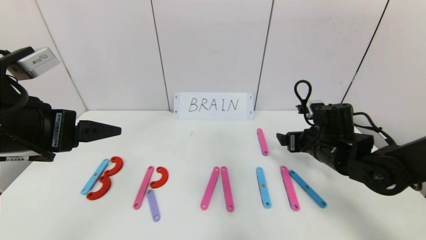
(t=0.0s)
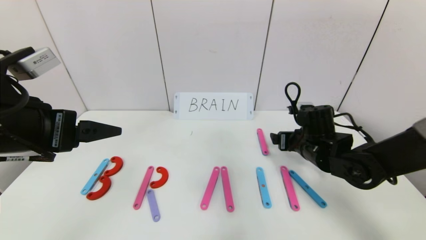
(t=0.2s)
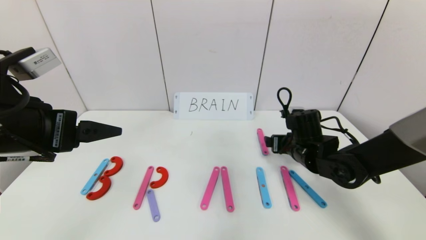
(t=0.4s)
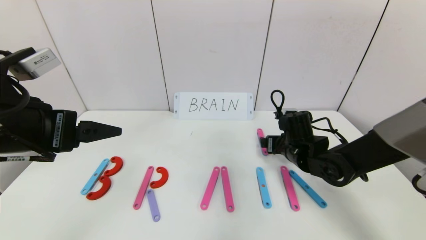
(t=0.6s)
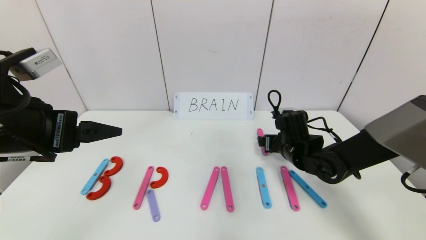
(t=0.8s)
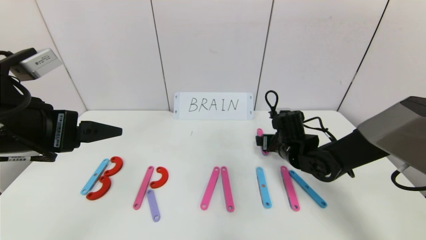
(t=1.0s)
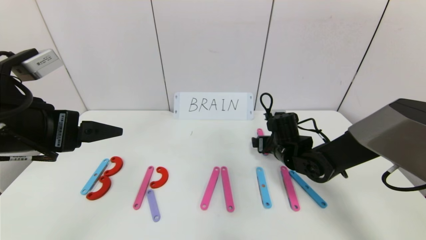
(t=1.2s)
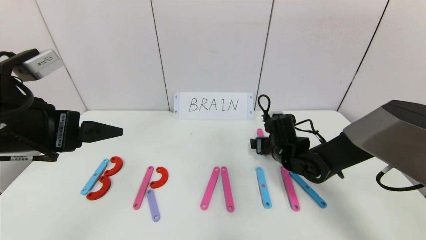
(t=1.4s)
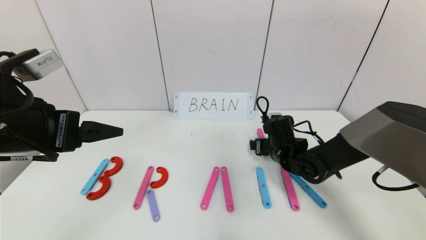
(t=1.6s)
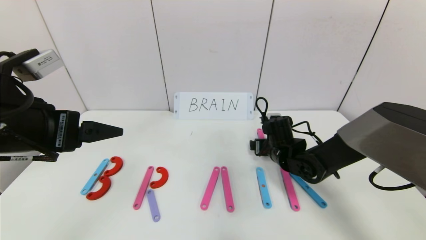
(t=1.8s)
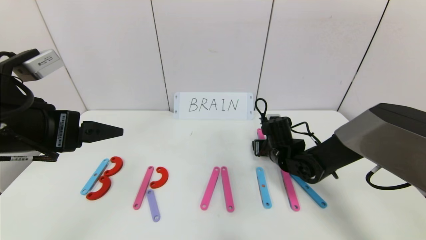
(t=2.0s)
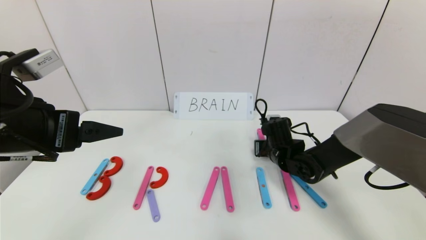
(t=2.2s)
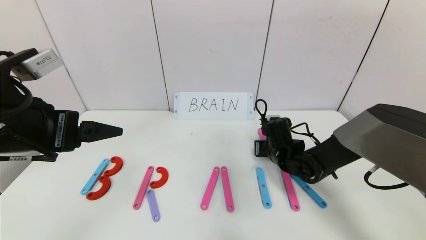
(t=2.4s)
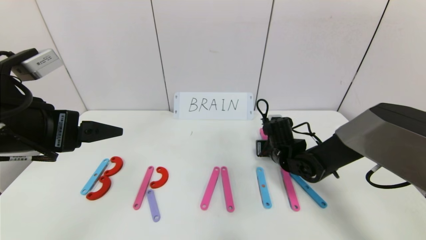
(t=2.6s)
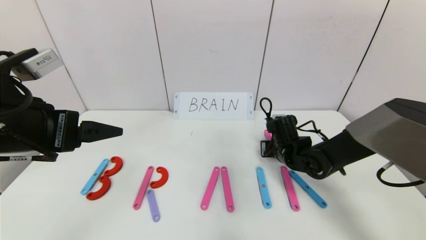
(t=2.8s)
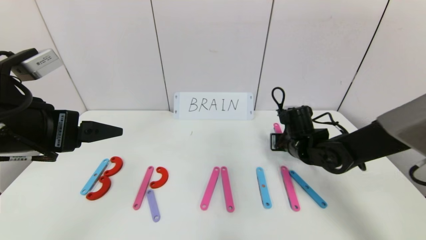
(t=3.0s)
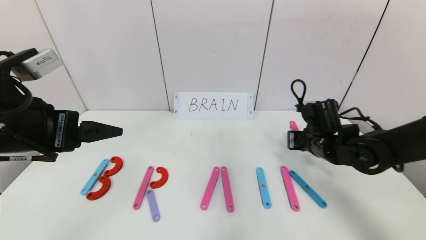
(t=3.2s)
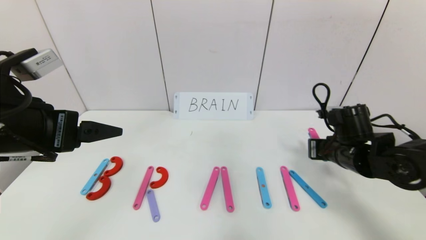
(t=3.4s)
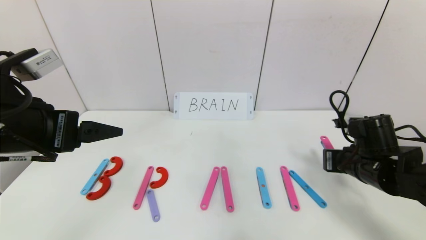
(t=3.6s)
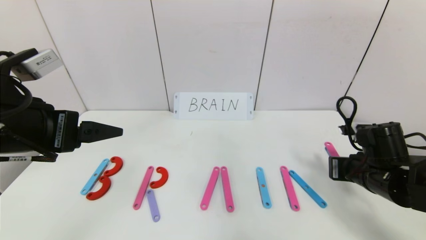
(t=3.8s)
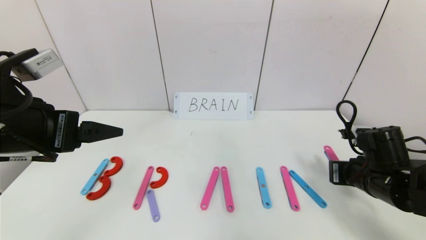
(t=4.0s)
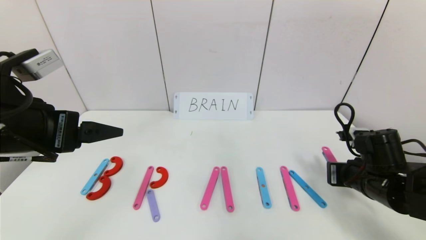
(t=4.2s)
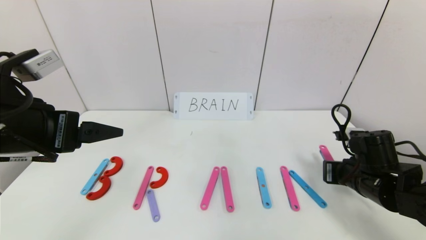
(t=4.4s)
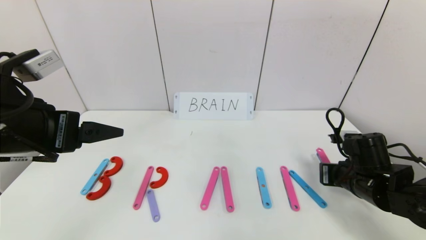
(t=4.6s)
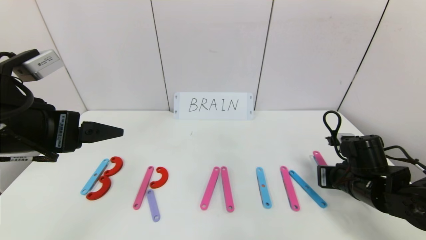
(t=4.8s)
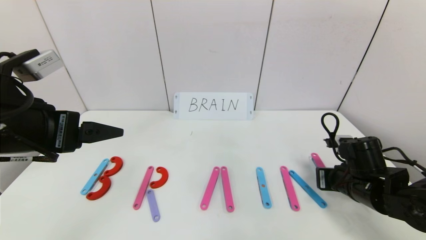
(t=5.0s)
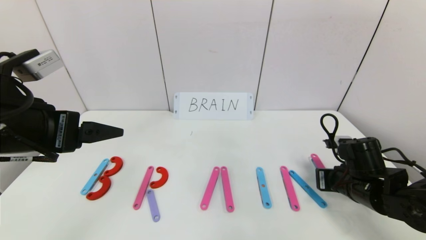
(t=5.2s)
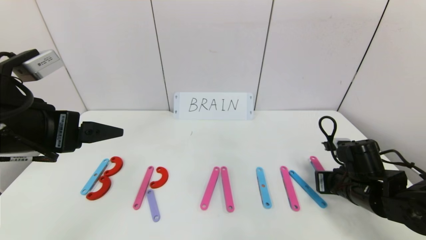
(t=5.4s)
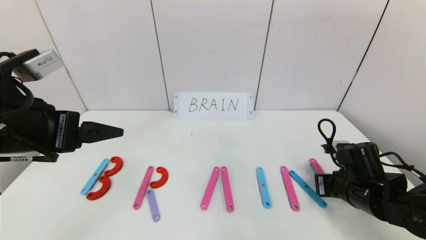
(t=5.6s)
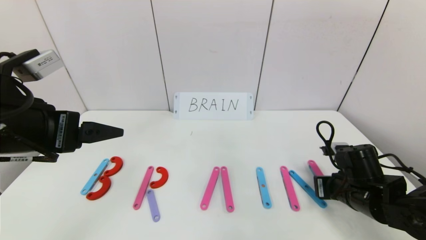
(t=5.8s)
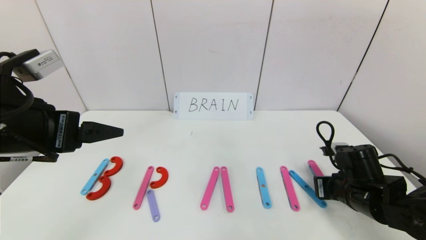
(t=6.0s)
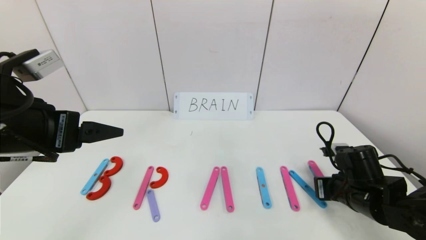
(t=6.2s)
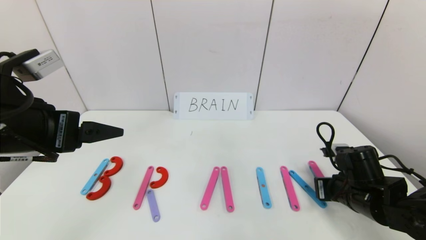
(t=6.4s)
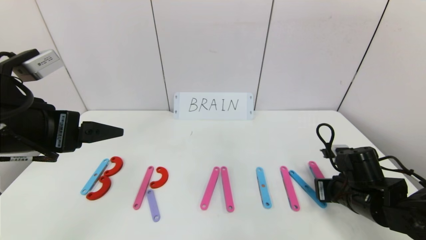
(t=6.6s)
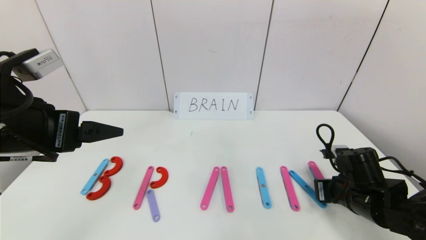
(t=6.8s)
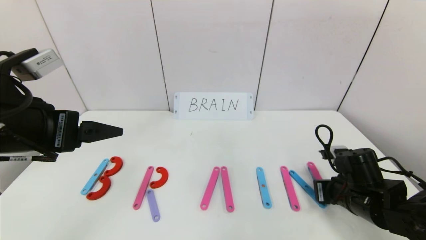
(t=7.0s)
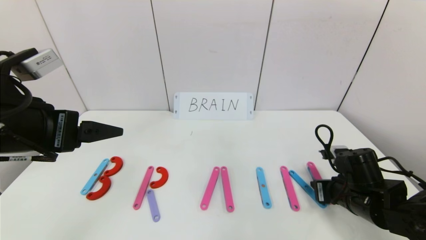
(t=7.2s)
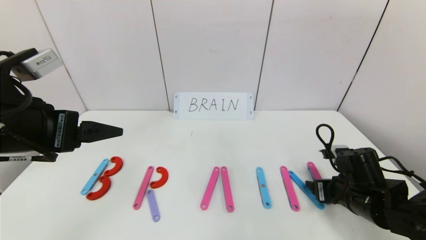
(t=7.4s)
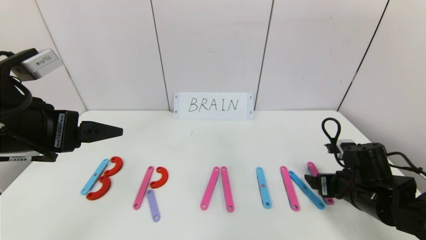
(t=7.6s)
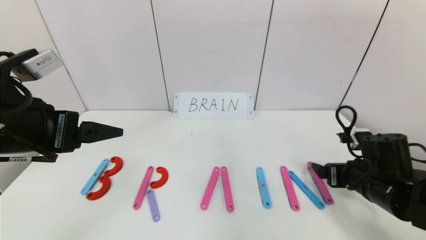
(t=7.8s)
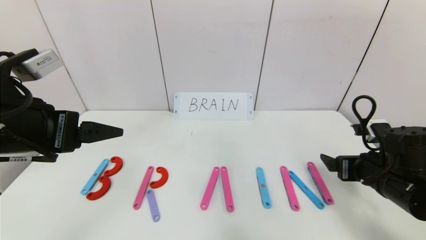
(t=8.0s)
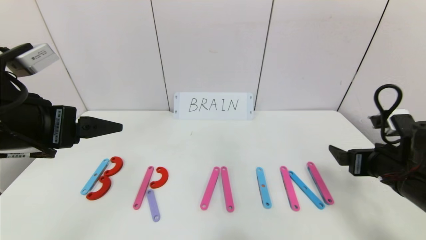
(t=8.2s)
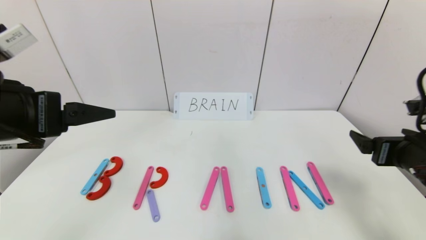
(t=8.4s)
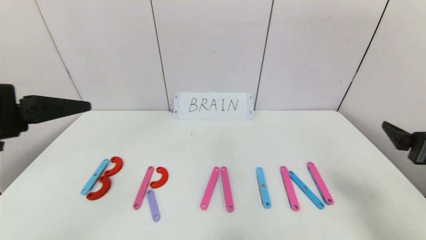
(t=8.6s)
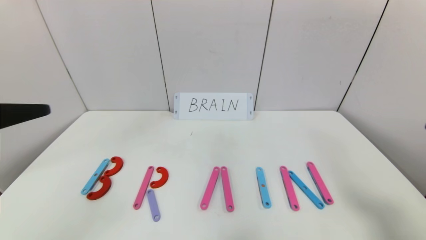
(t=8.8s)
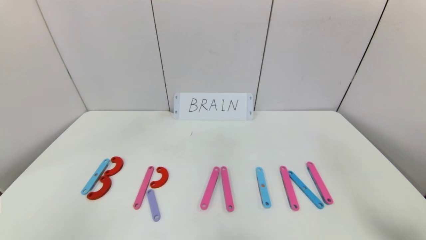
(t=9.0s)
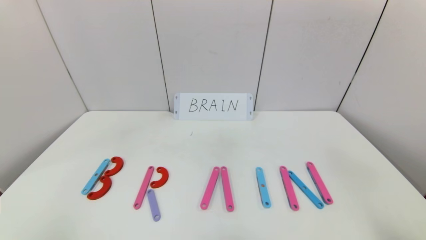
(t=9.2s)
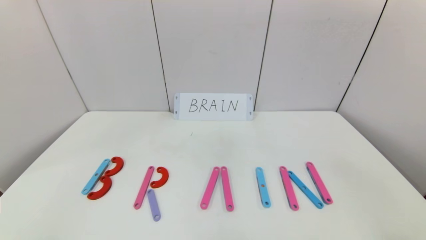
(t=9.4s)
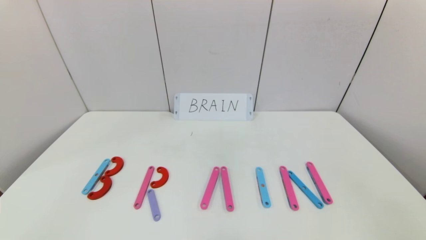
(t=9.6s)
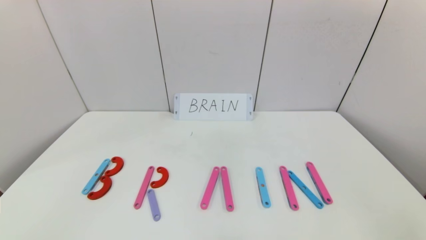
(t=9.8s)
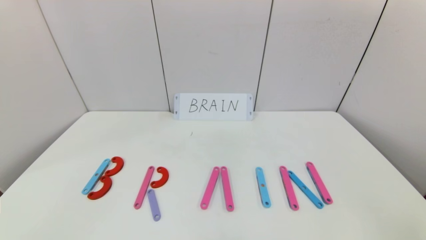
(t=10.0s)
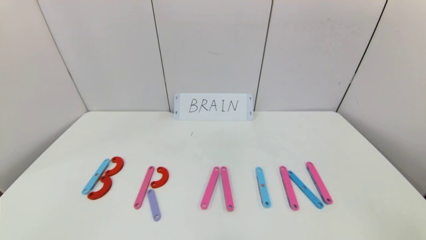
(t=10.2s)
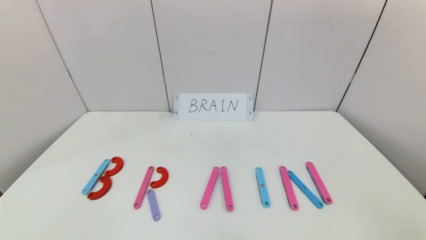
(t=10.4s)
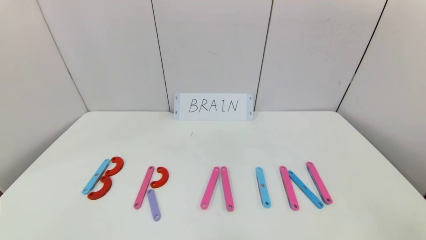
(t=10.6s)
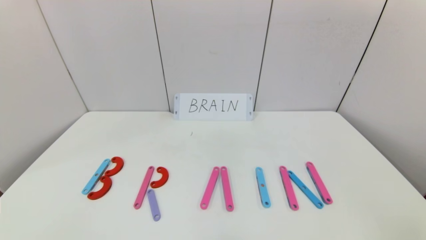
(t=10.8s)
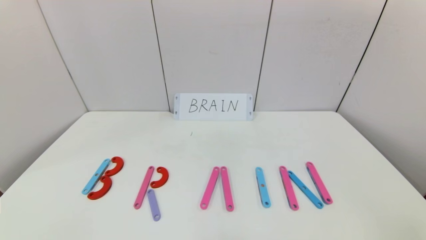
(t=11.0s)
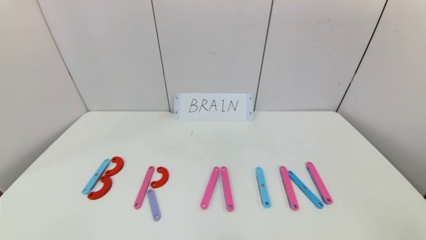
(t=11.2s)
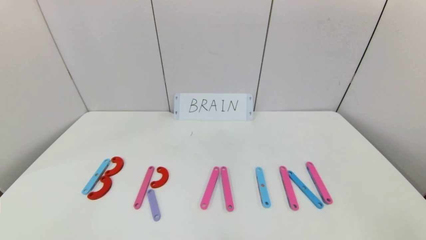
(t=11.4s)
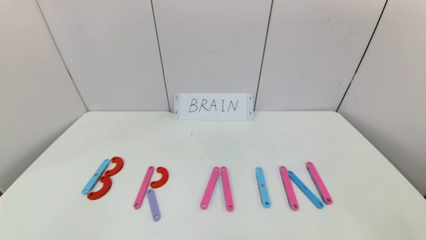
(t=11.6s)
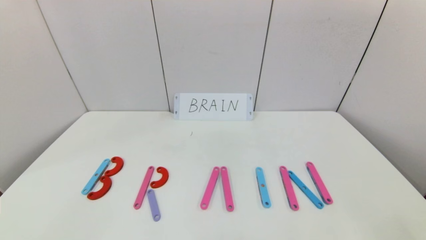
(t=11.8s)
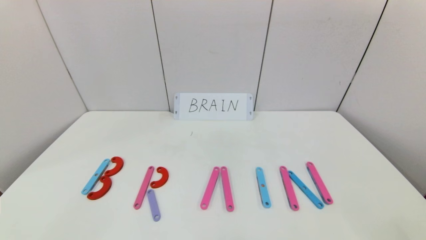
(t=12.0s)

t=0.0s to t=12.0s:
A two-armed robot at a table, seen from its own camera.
Task of the whole recording: rearrange the word baai as brain.
Step, t=0.0s to t=7.6s: Place the character N after character I.
t=0.0s to t=1.6s: The right gripper shifts about 10 cm to the left, downward and forward.
t=1.6s to t=3.0s: The right gripper closes up.
t=3.0s to t=4.4s: The right gripper goes some 15 cm backward and to the right.
t=4.4s to t=6.0s: The grippers make only small movements.
t=6.0s to t=7.6s: The right gripper opens up.
t=7.6s to t=9.0s: The right gripper moves backward and upward, some 25 cm; the left gripper shifts approximately 15 cm backward.
t=9.0s to t=10.4s: The right gripper heads backward and downward, covering about 15 cm.
